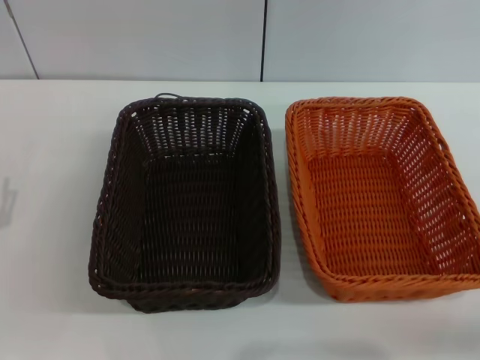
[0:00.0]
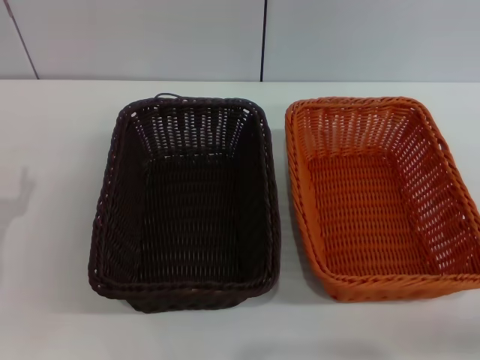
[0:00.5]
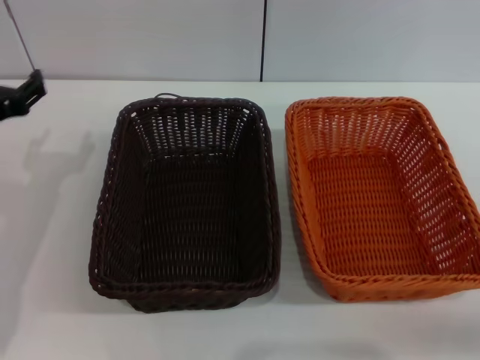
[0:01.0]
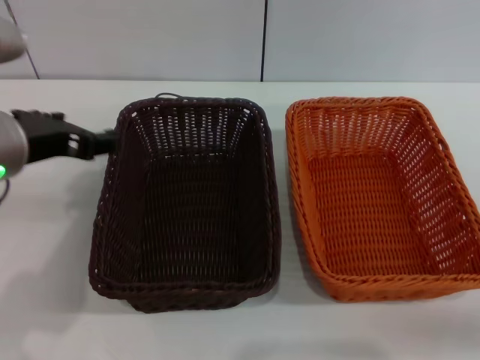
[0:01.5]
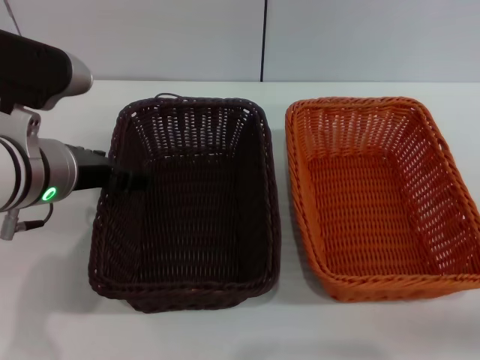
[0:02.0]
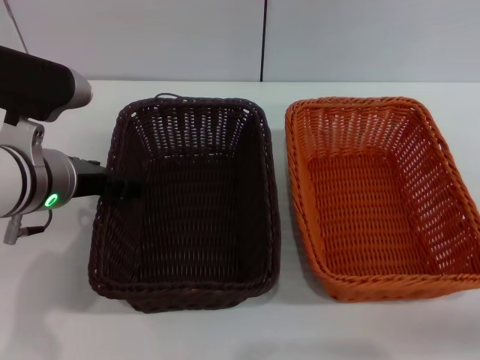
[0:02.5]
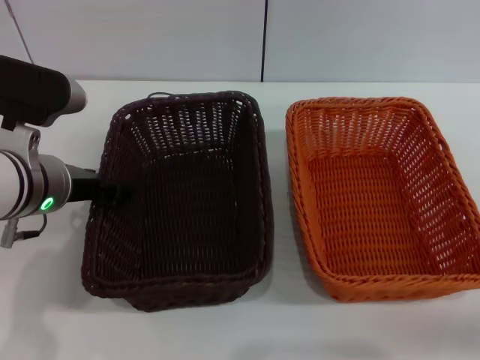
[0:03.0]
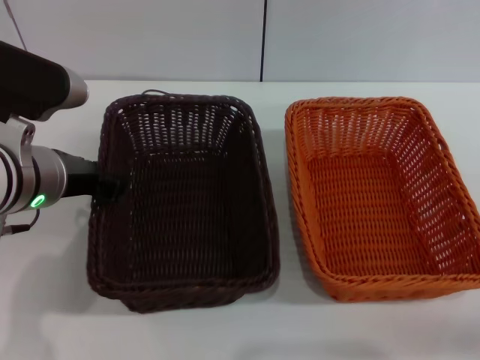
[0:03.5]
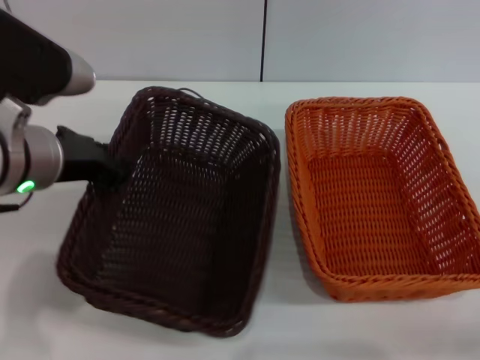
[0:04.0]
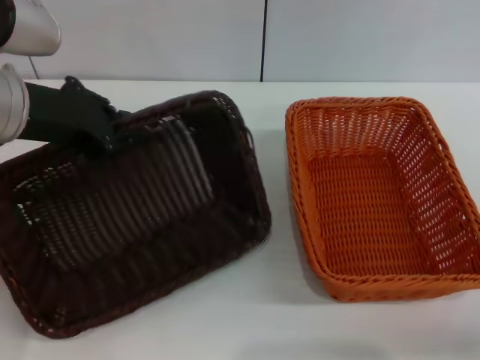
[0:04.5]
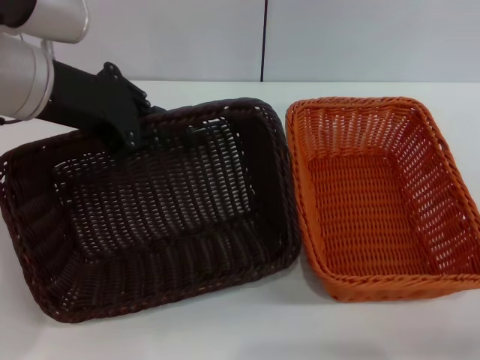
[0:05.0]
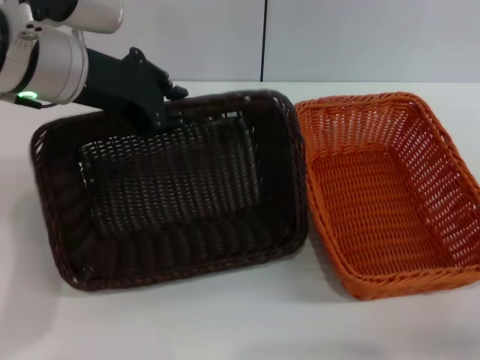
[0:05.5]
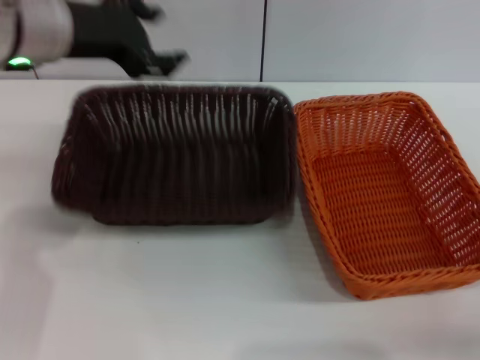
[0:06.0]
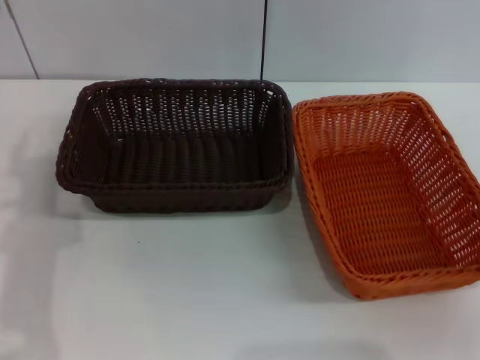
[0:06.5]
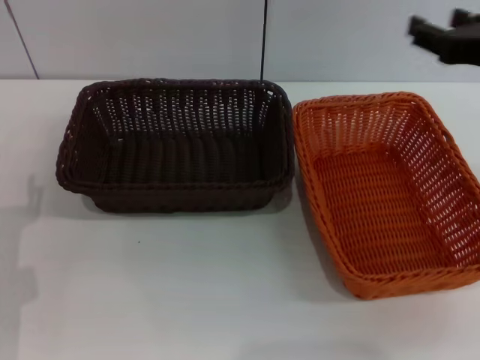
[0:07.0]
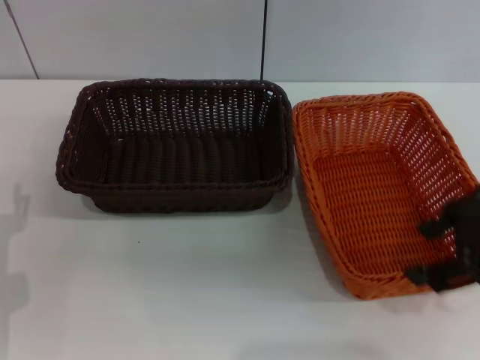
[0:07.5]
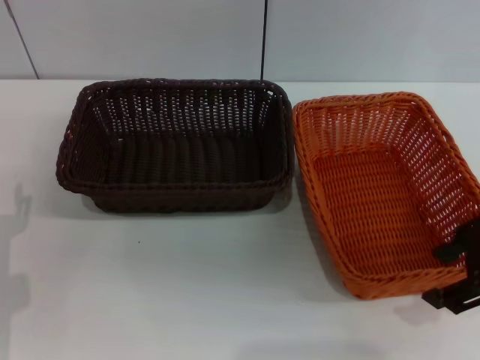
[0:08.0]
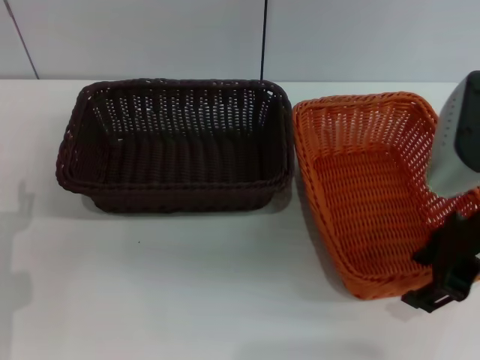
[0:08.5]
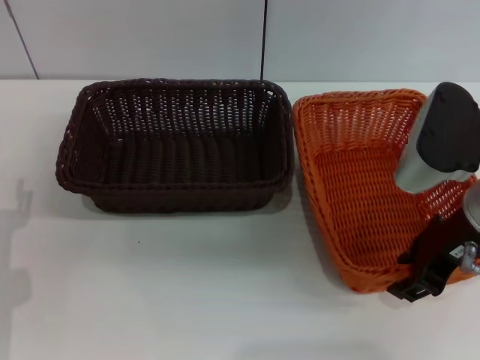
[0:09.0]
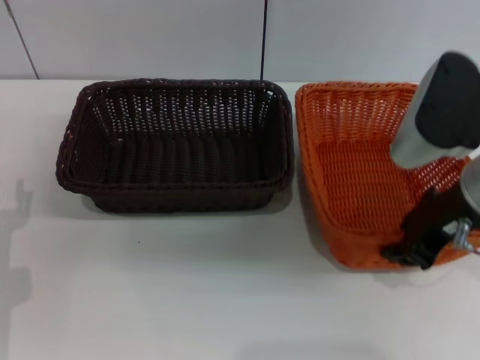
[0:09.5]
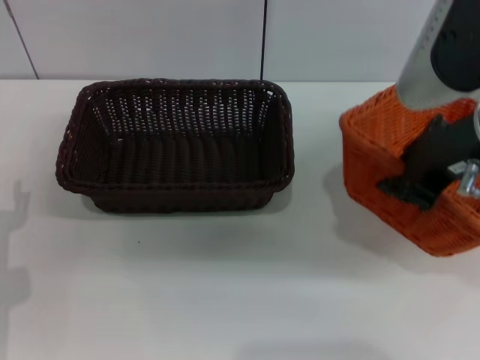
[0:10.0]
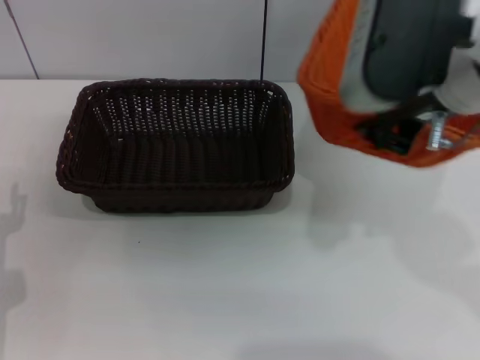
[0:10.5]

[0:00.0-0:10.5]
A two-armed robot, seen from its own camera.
Step, 0:00.0 to 0:03.0: Pick up the dark basket with the left gripper.
Step, 0:03.5 to 0:05.5: Place the dark basket in the center of view with the left gripper.
Step, 0:06.5 to 0:09.5: Pick up the light basket with the right gripper.
0:00.0 to 0:02.0: The left gripper travels upward, to the right and forward by approximately 20 cm.
0:02.0 to 0:04.0: The left gripper closes its fingers.
0:04.0 to 0:06.5: The right gripper moves forward and upward, approximately 5 cm. The left gripper goes approximately 5 cm to the left, travels upward and back again, approximately 5 cm each way, and opens.
0:06.5 to 0:08.5: The right gripper heads to the left and upward, covering roughly 15 cm; the left gripper goes about 15 cm downward and backward.
0:08.5 to 0:10.5: The right gripper goes about 10 cm upward and to the left, and closes up.

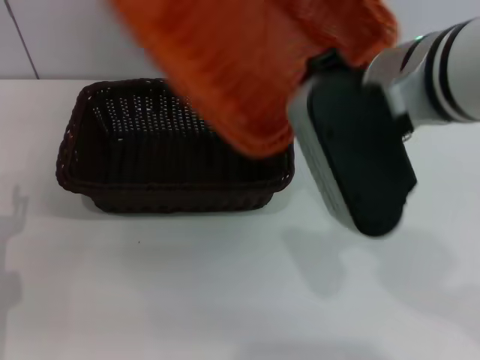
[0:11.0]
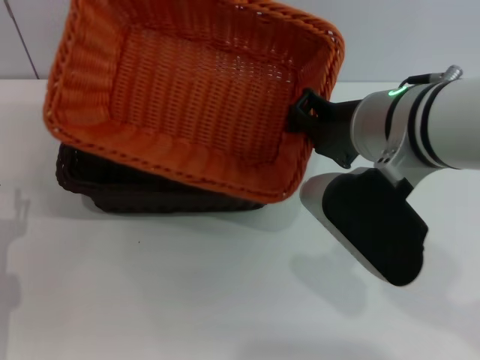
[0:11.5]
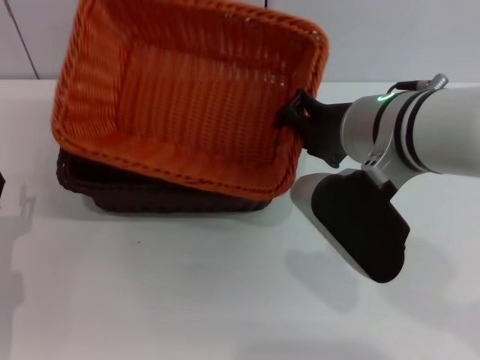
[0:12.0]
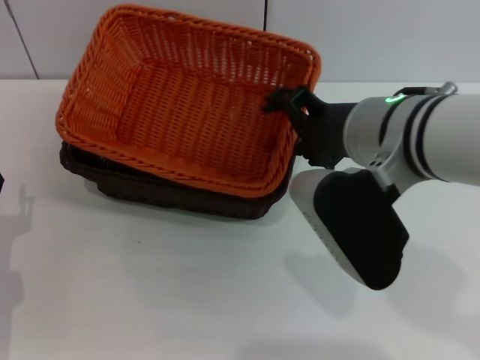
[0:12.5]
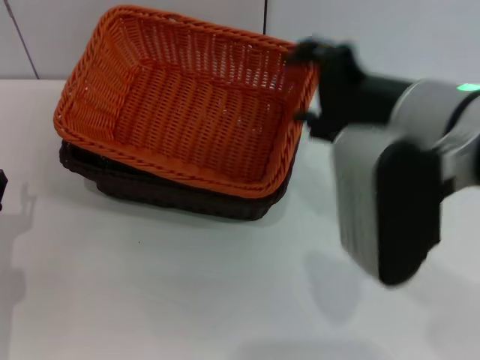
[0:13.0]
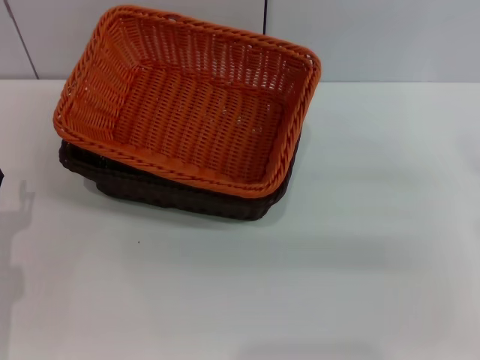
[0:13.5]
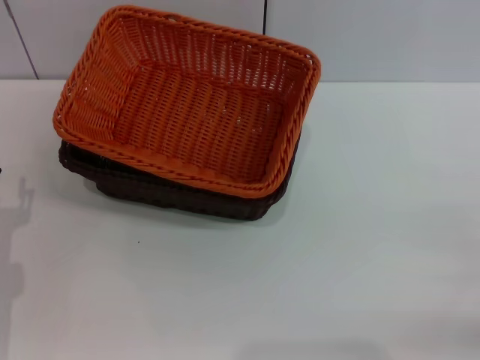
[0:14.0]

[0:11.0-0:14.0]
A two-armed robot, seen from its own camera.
0:11.0 to 0:12.5: The right gripper moves downward, roughly 5 cm, and opens its fingers.
0:12.5 to 0:14.0: The right gripper goes roughly 30 cm to the right and downward.

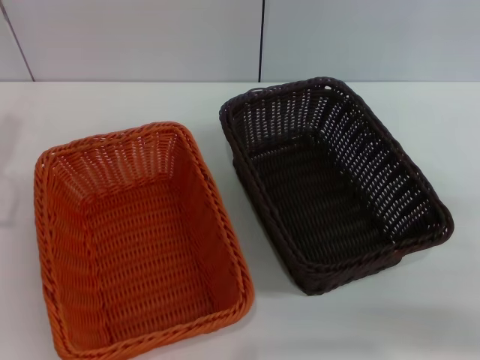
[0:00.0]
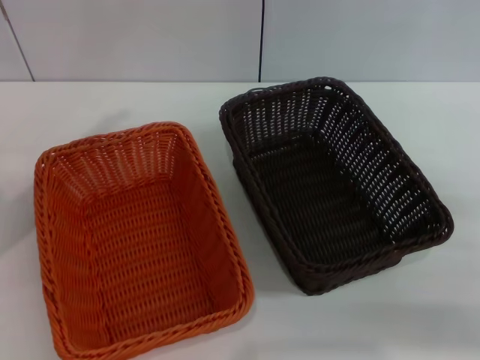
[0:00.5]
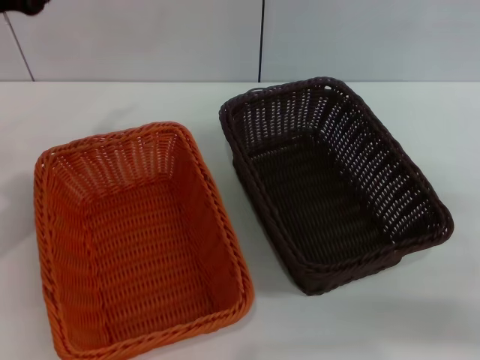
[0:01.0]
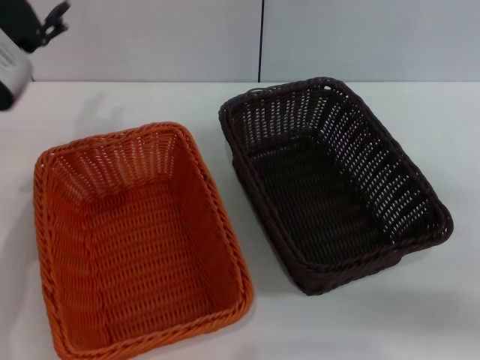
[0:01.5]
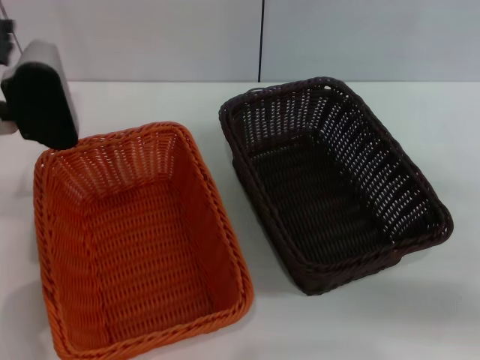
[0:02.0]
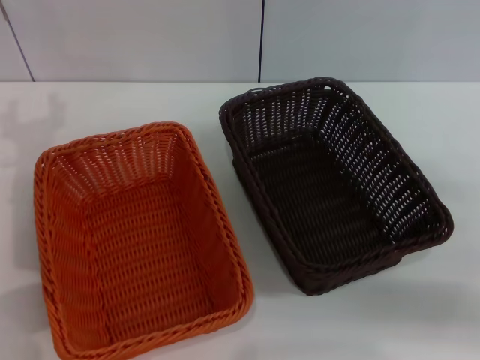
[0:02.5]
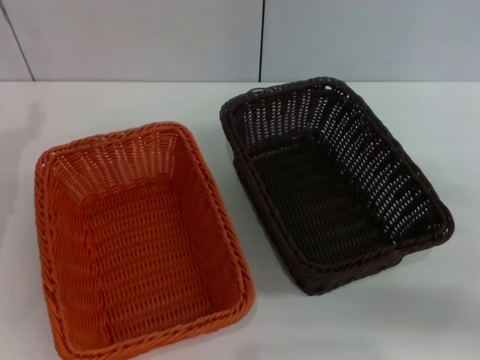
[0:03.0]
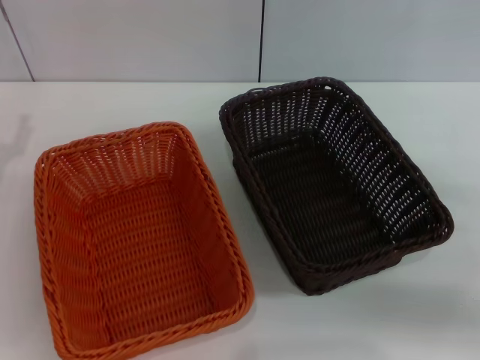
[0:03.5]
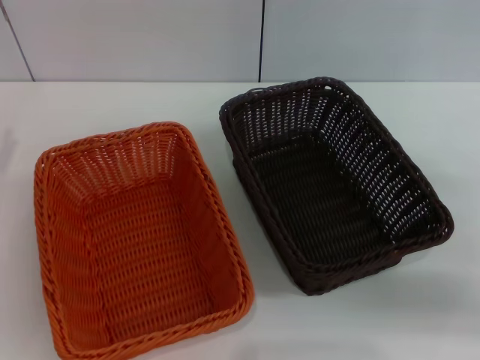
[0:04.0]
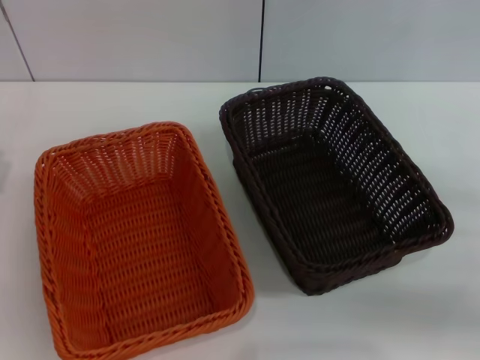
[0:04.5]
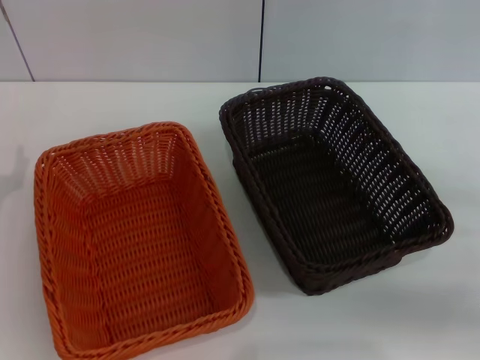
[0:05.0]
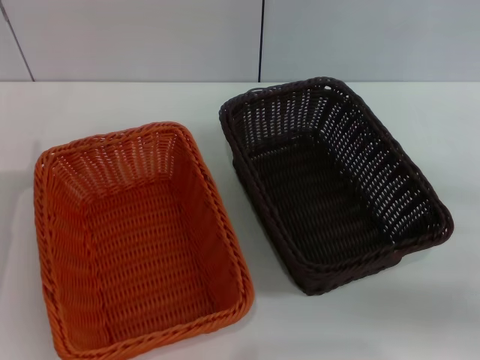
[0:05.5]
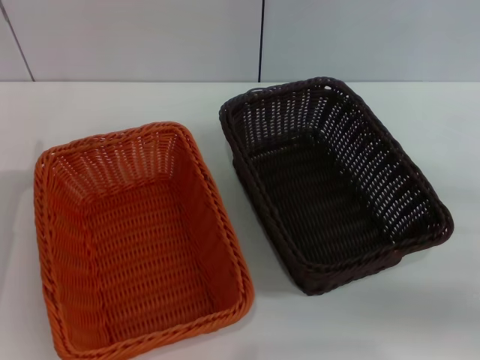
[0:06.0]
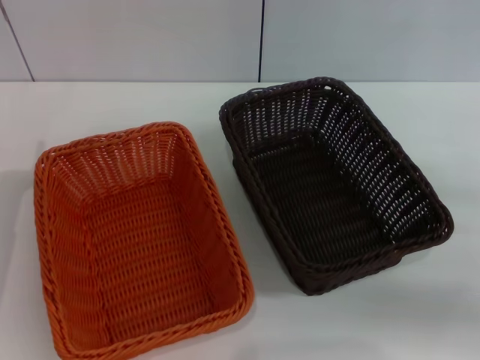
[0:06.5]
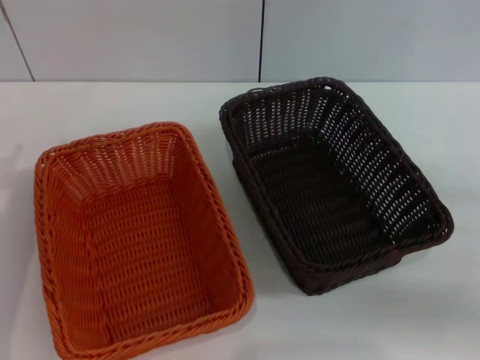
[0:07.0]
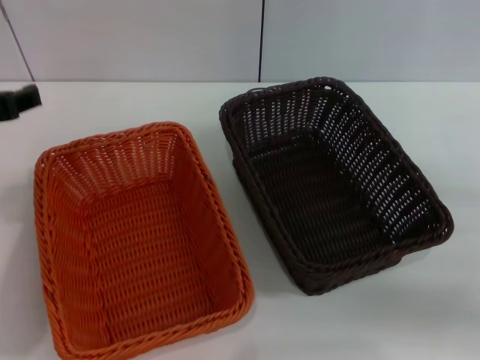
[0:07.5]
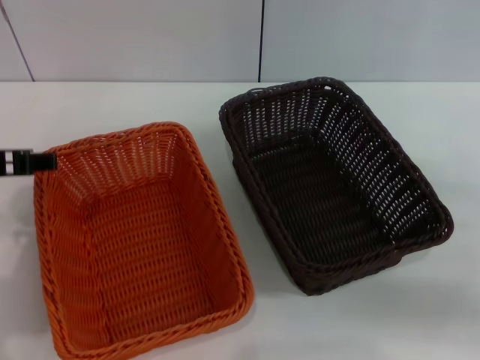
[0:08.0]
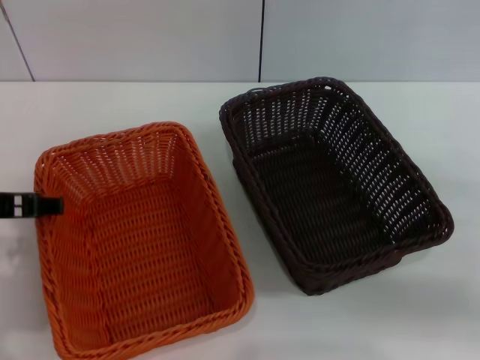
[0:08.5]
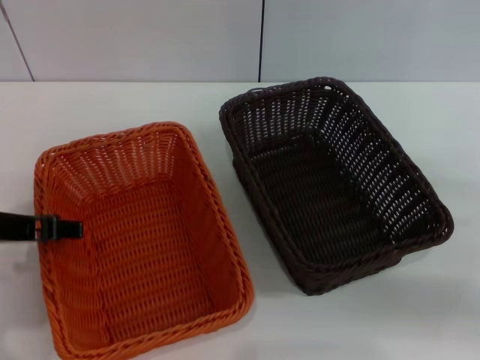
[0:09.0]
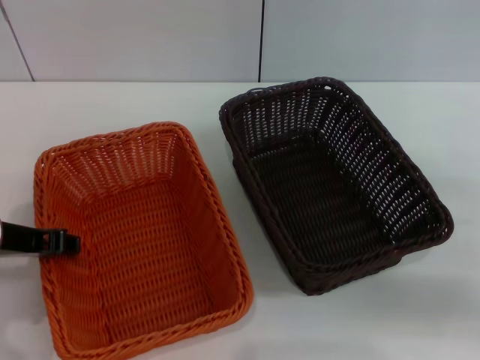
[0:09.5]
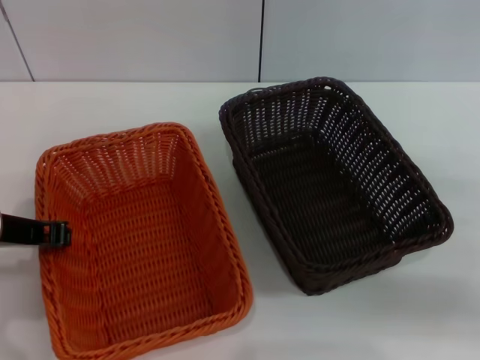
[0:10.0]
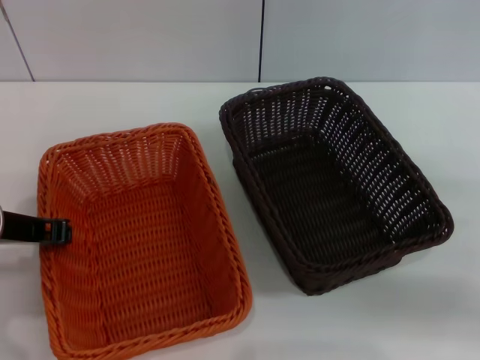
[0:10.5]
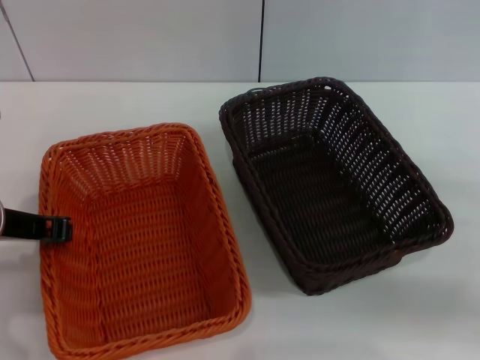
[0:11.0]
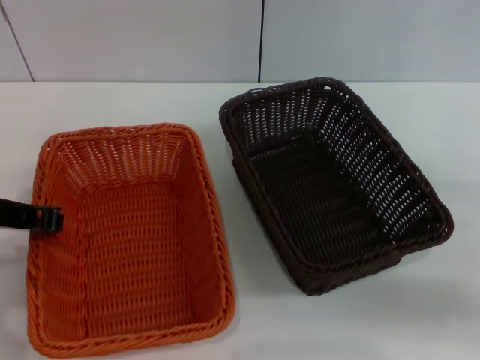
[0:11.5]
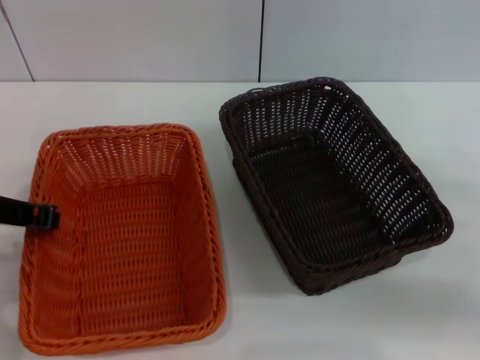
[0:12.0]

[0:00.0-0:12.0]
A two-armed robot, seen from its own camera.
0:00.0 to 0:02.0: The left gripper shifts approximately 10 cm to the right and forward.
0:02.0 to 0:04.0: The left gripper shifts some 15 cm to the left, backward and downward.
0:06.0 to 0:08.0: The left gripper shifts about 15 cm upward and to the right.
0:08.0 to 0:10.0: The left gripper is displaced downward by approximately 5 cm, and closes.
0:10.0 to 0:12.0: The grippers stay close to where they were, moving slightly.
